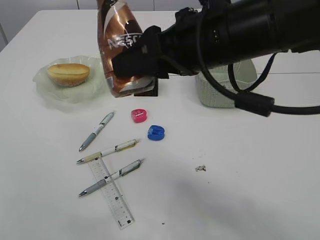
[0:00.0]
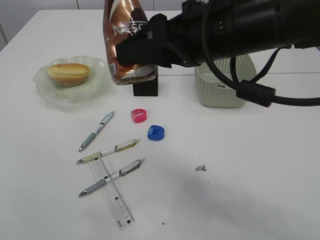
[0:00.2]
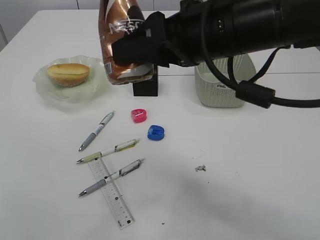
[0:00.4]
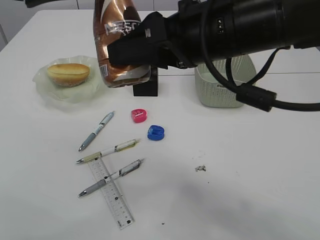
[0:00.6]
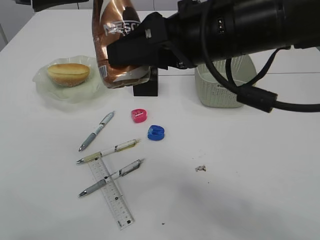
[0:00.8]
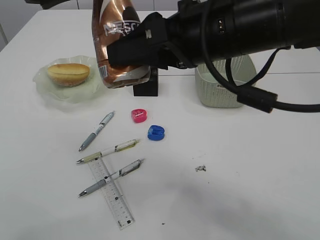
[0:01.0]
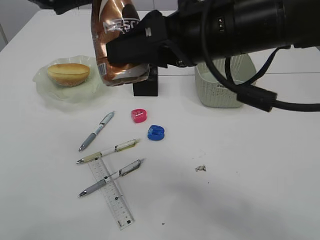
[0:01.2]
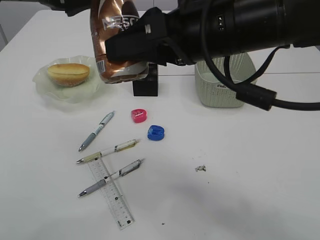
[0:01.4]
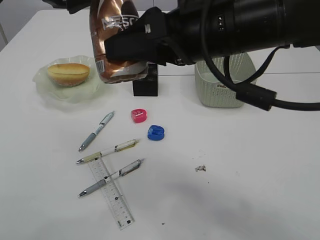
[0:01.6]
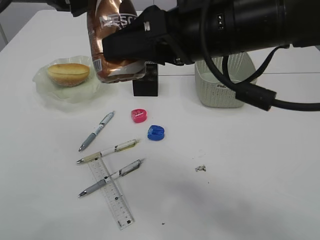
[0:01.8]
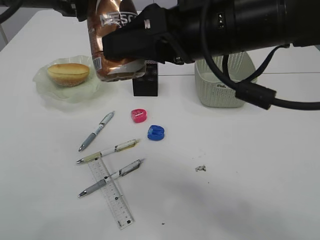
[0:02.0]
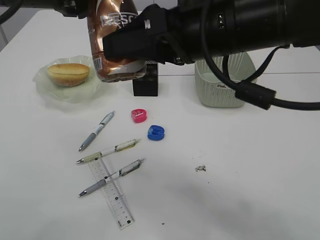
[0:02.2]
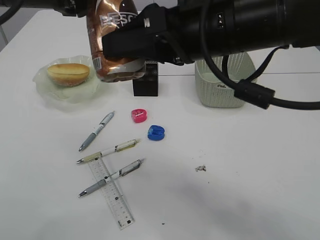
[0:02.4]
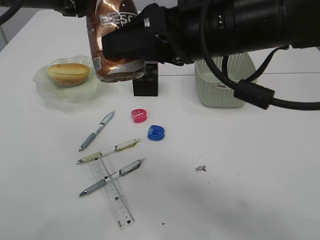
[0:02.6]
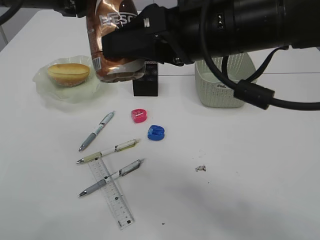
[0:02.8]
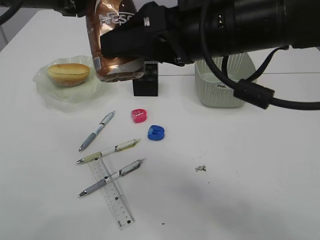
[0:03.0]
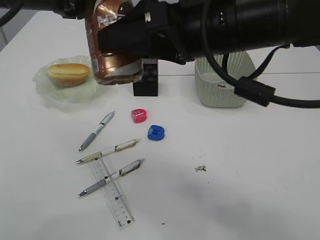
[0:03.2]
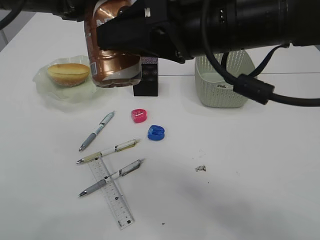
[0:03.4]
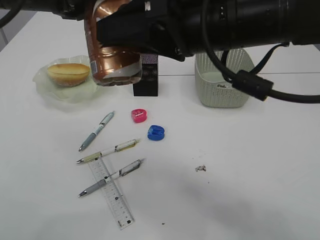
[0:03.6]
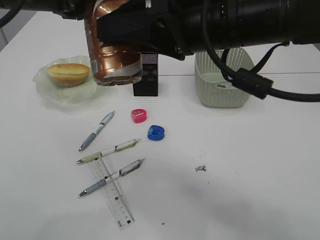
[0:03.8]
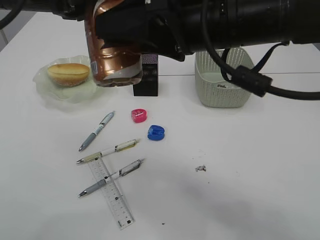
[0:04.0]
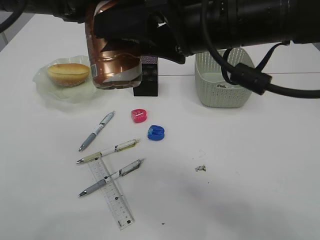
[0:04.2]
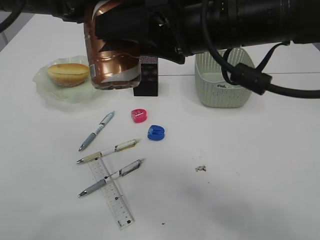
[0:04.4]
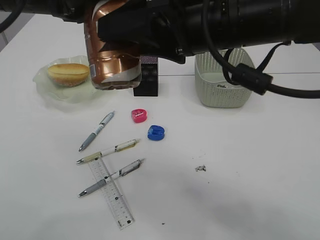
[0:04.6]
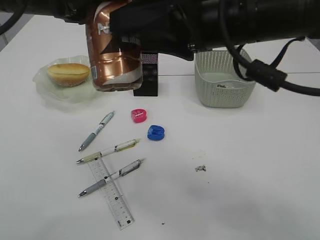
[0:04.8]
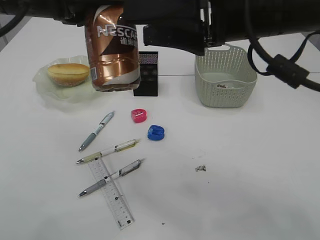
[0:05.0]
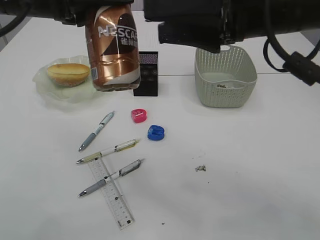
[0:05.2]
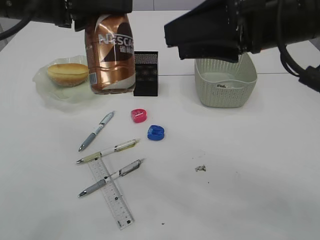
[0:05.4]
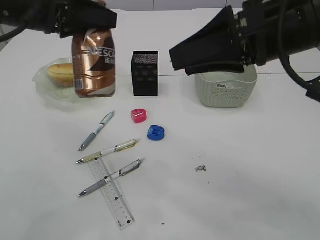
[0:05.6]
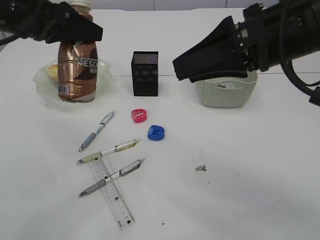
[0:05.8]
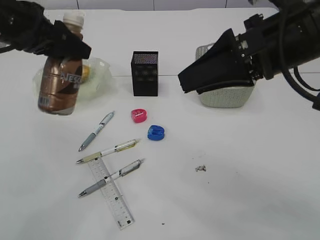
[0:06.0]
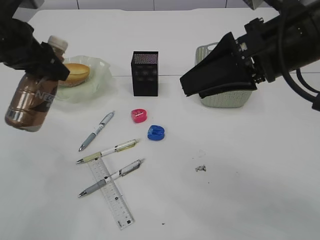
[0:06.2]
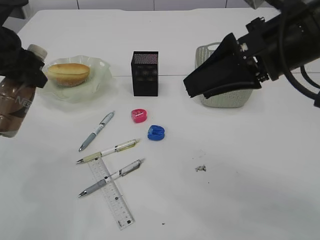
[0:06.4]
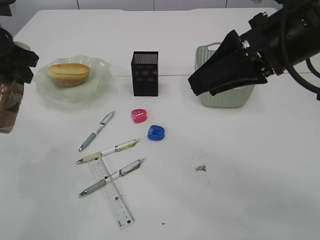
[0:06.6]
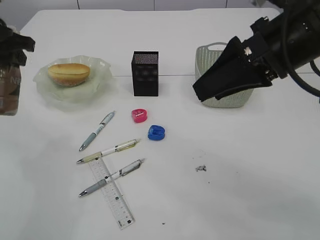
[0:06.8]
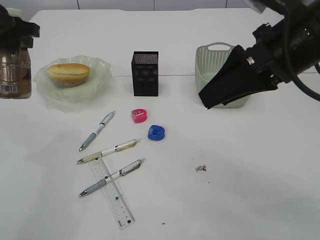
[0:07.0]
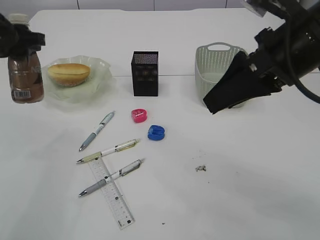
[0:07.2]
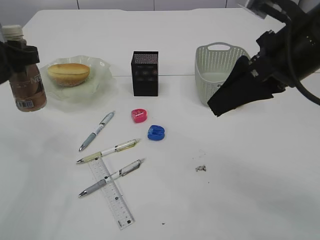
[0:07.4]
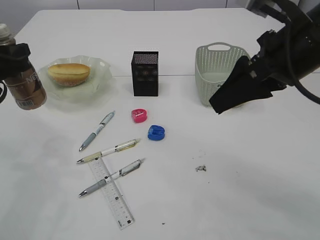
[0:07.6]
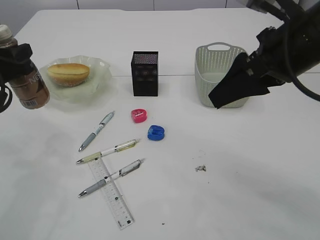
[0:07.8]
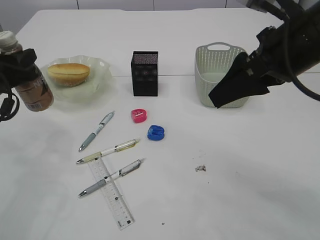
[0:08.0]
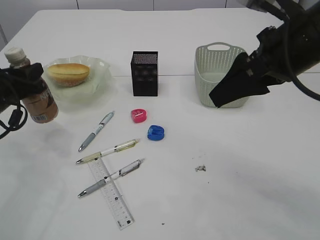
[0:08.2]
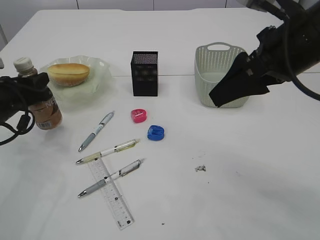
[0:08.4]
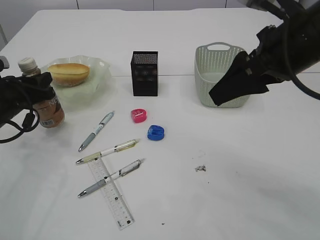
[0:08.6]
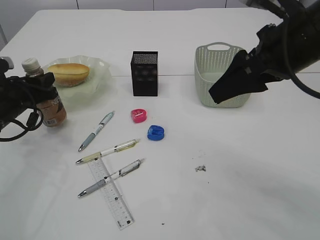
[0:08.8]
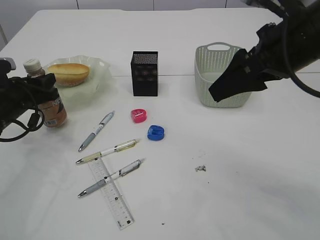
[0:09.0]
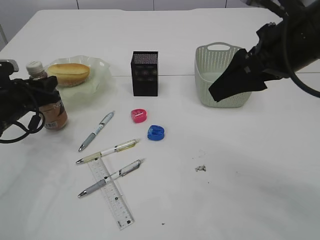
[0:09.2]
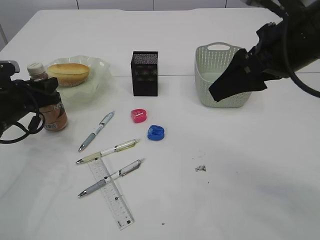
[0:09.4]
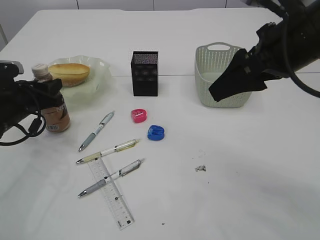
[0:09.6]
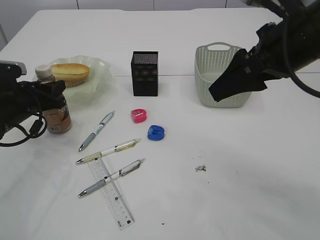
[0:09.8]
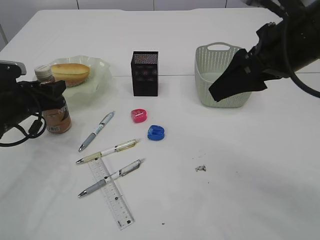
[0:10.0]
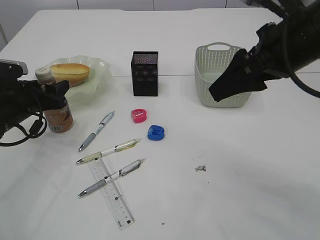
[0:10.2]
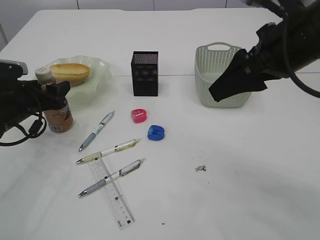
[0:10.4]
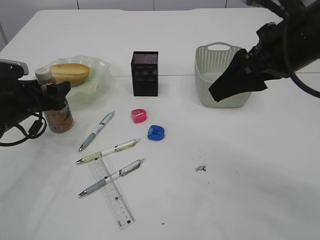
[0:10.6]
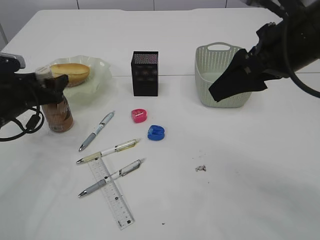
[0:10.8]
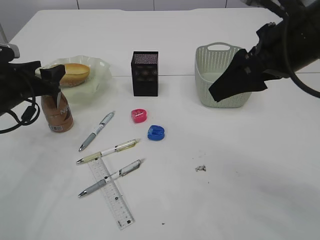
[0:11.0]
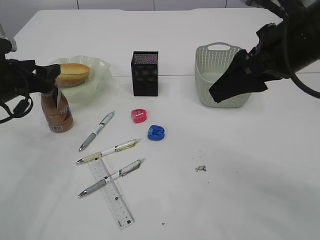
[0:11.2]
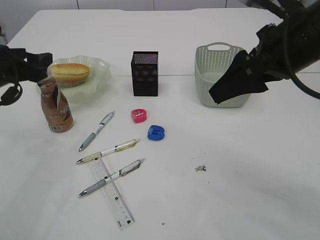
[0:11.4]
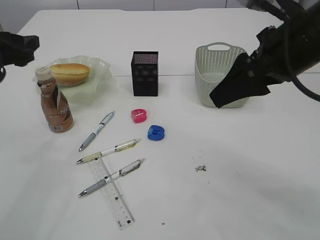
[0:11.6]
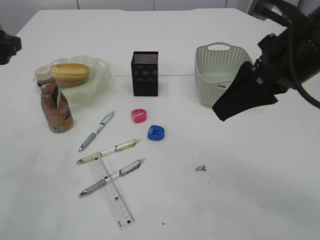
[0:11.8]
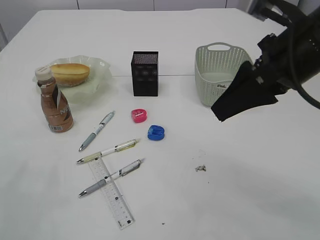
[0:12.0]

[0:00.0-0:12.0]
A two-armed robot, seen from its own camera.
Step, 0:00.0 to 0:05.2: transfer the bottle to the left arm.
Step, 0:05.4 to 0:11.4: Place the bottle.
0:00.0 to 0:01.6: The left gripper shifts some 10 cm downward, forward and to the right.
0:01.6 to 0:03.0: The left gripper closes its fingers.
0:03.0 to 0:04.4: The grippers make only small movements.
0:04.4 to 0:06.0: The left gripper moves to the left, some 5 cm. The right gripper is displaced to the right by some 10 cm.
0:06.0 to 0:07.6: The left gripper is displaced downward and to the left by about 10 cm.
0:07.6 to 0:09.0: The left gripper moves downward, approximately 10 cm.
0:09.0 to 0:10.4: The left gripper opens its fingers.
0:10.4 to 0:12.0: The left gripper goes roughly 20 cm upward and backward.

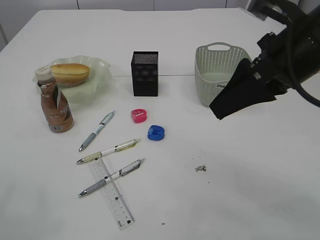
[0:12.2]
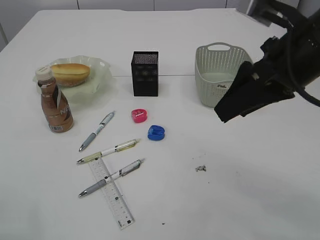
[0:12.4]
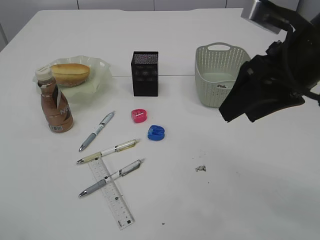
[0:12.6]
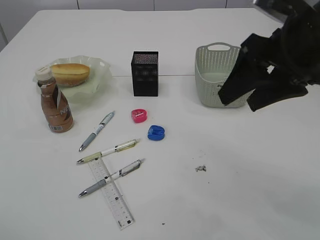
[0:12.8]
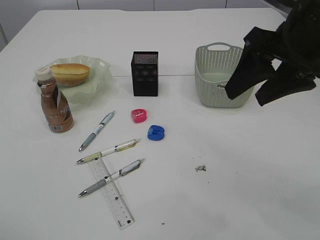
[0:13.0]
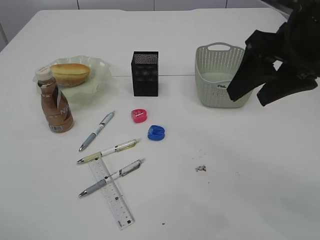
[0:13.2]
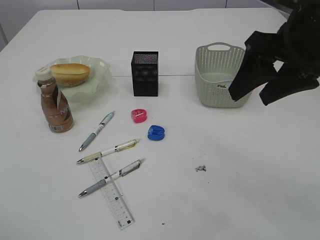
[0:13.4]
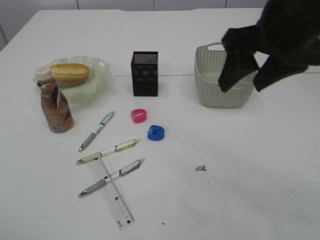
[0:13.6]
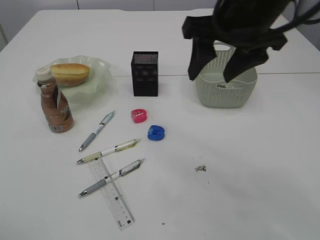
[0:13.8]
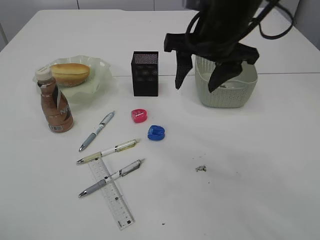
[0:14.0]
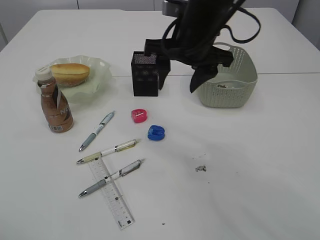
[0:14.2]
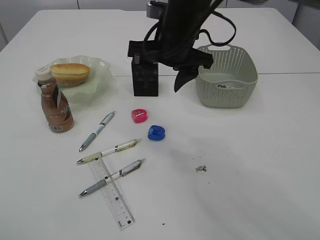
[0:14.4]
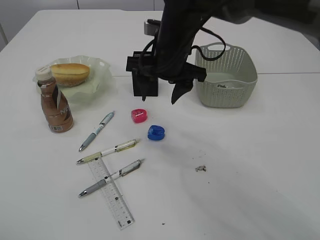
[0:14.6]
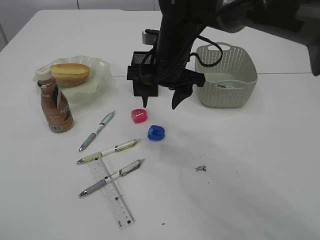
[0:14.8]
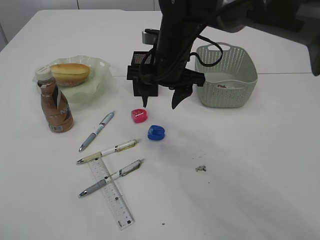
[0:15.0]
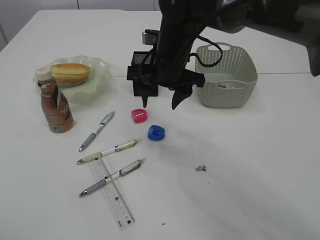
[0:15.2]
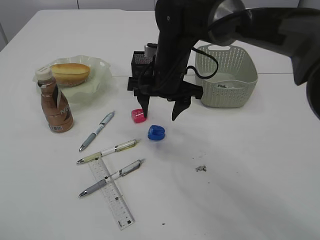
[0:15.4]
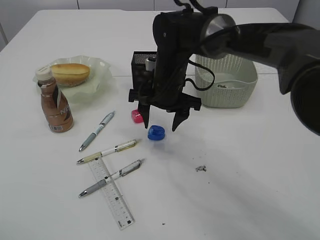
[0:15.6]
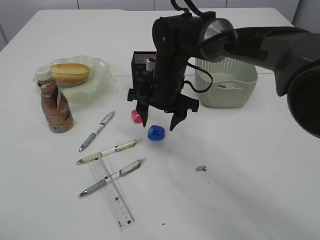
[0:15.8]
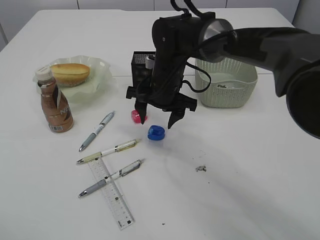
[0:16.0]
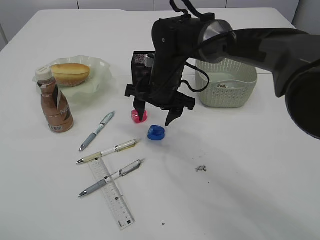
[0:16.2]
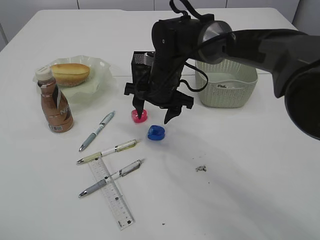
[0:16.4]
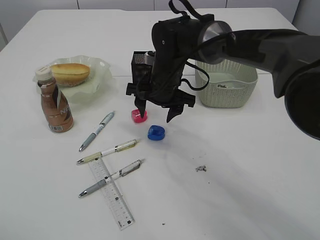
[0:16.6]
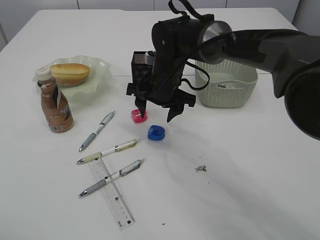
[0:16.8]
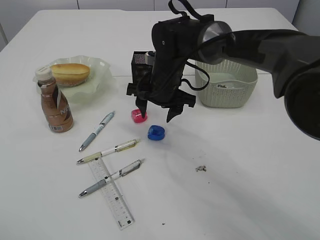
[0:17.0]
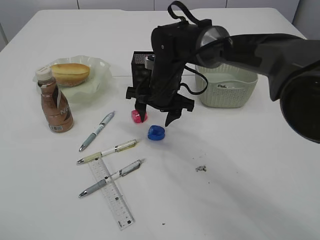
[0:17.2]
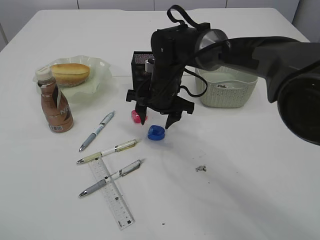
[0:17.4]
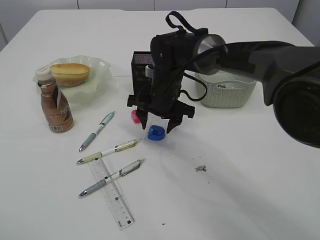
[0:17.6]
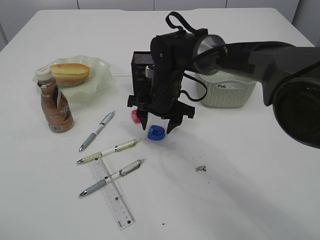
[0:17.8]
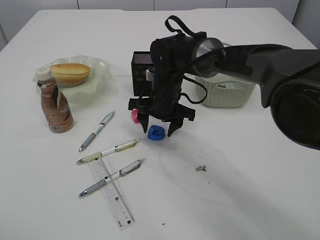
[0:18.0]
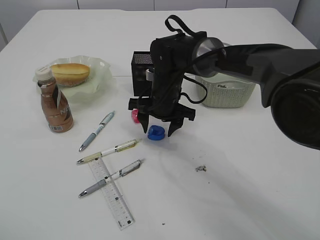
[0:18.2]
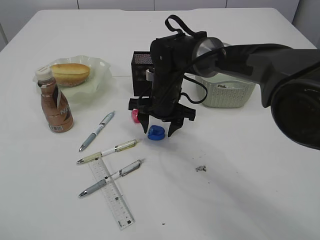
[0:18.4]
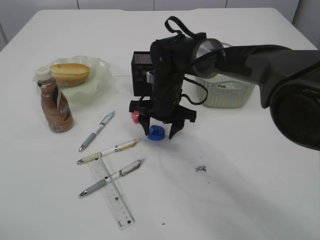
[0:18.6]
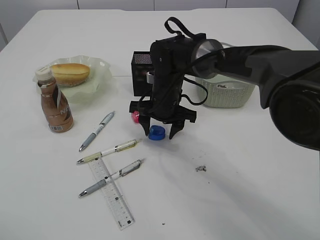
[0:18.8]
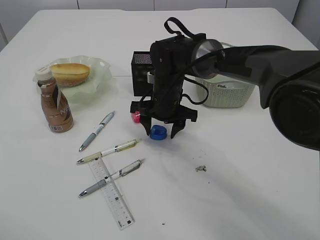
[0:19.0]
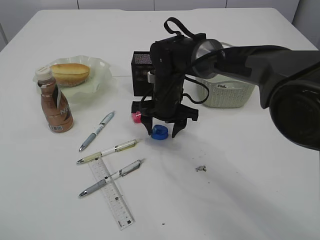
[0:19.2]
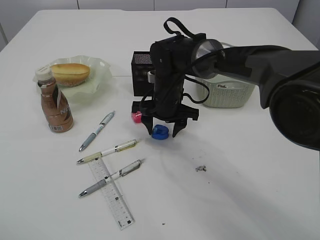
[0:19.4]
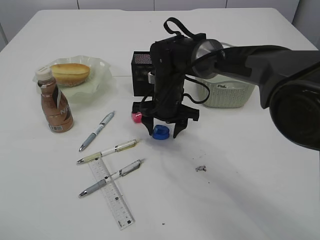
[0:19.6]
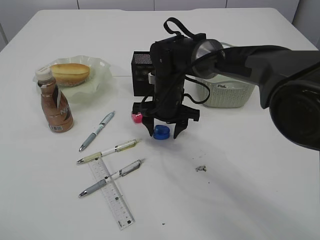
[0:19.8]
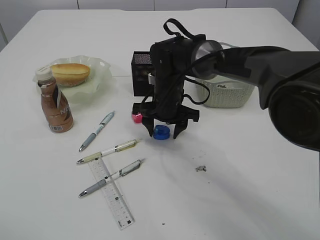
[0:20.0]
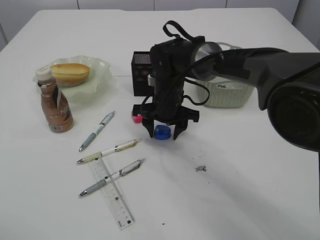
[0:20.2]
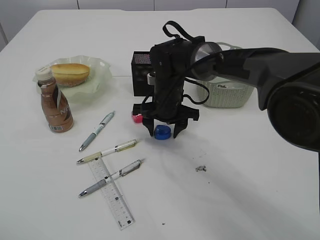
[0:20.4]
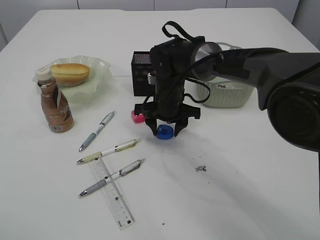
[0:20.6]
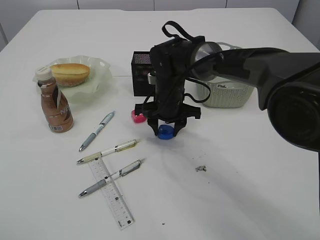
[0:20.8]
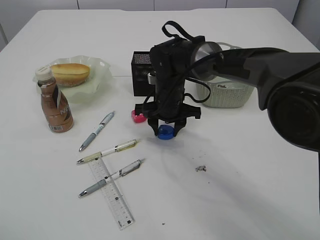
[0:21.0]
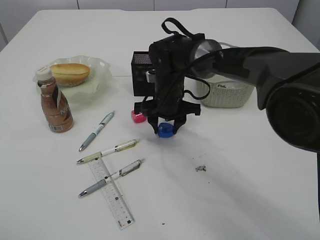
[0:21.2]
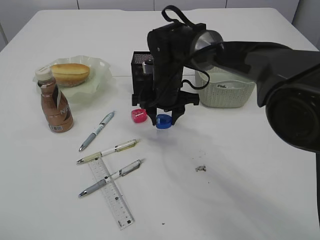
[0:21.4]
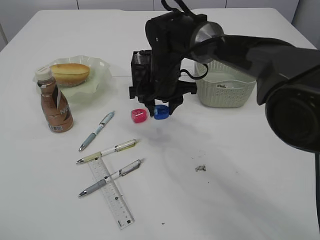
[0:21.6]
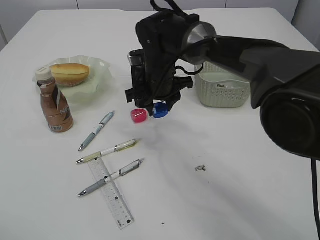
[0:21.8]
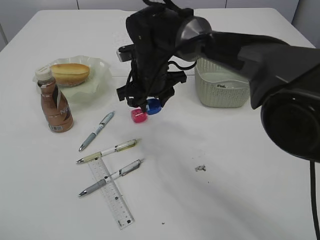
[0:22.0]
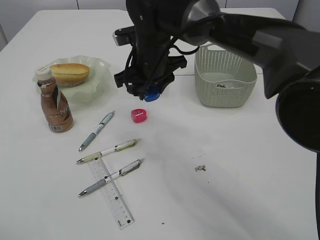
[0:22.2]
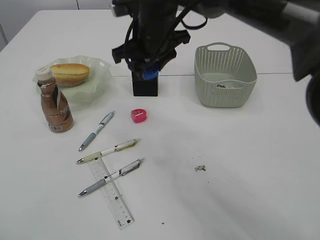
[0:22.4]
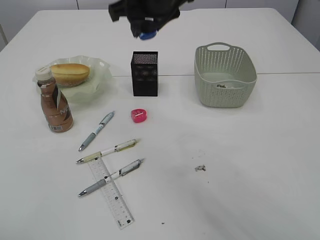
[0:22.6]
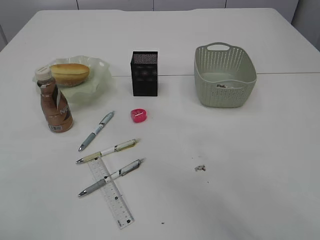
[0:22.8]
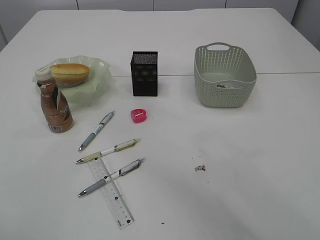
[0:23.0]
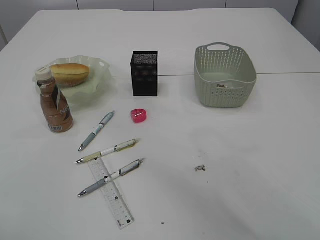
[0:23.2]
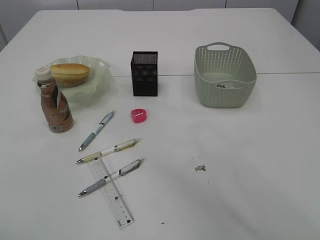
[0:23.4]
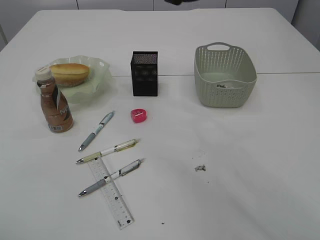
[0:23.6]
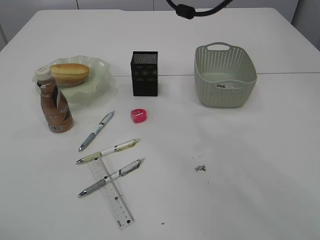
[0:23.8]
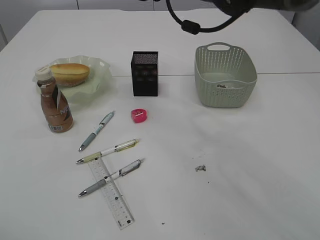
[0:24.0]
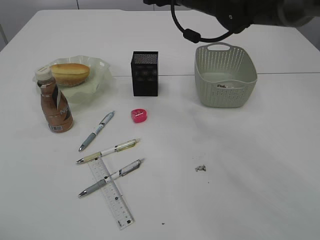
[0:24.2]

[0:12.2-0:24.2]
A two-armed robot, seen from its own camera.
Step, 0:12.2 to 0:21.6: Pick up the blue pencil sharpener.
0:12.2 to 0:13.8: The left gripper goes roughly 10 cm backward, while the right gripper is displaced to the left by approximately 5 cm.
0:13.8 to 0:15.2: The right gripper heads downward, forward and to the left, covering some 15 cm.
0:15.2 to 0:16.6: The right gripper heads downward, covering approximately 5 cm.
0:16.6 to 0:18.2: There are only small adjustments of the grippers.
0:18.2 to 0:19.8: Neither gripper changes place.
0:19.8 to 0:21.2: The grippers make only small movements.
0:21.2 to 0:22.6: The right gripper heads upward, covering about 20 cm.
0:22.6 to 0:24.2: The right gripper shifts roughly 10 cm to the right and forward, and goes upward and returns, roughly 10 cm each way.
